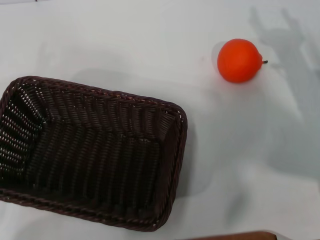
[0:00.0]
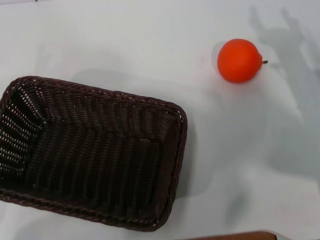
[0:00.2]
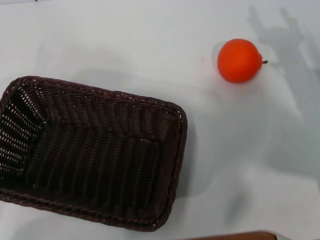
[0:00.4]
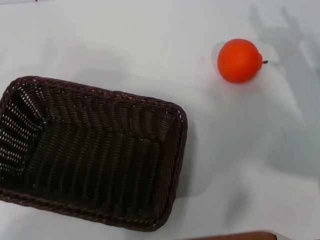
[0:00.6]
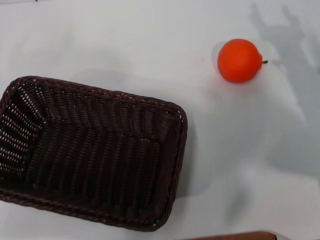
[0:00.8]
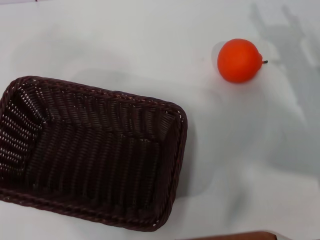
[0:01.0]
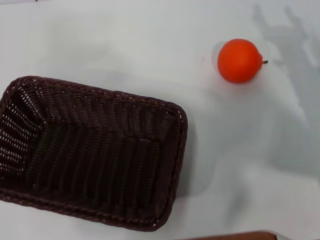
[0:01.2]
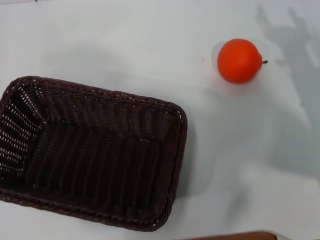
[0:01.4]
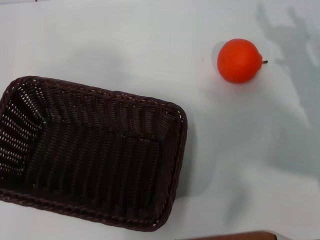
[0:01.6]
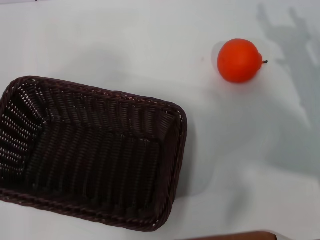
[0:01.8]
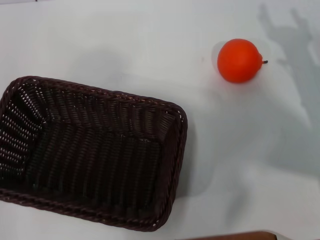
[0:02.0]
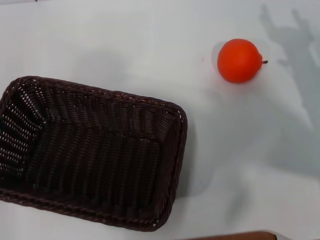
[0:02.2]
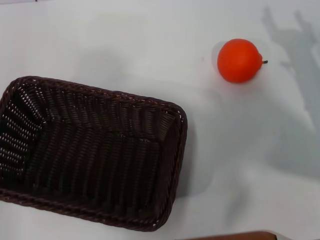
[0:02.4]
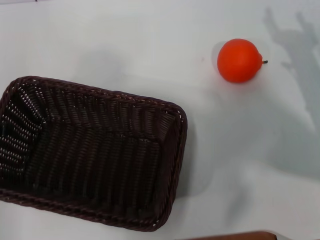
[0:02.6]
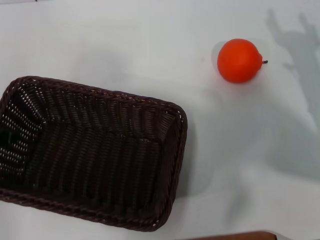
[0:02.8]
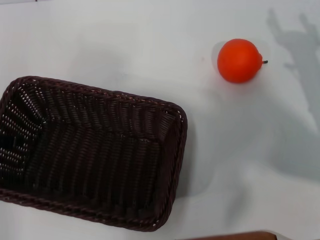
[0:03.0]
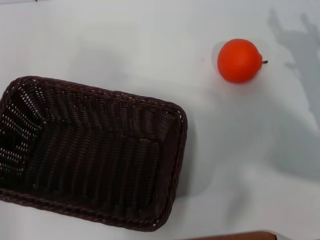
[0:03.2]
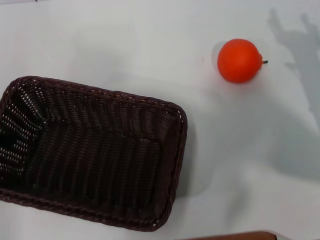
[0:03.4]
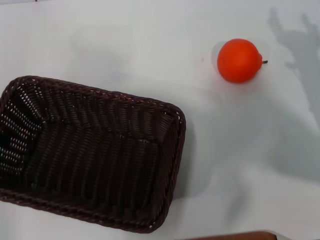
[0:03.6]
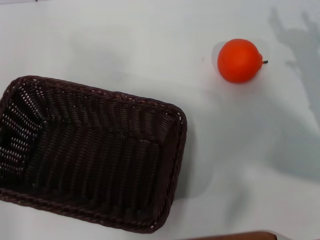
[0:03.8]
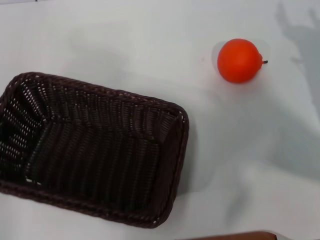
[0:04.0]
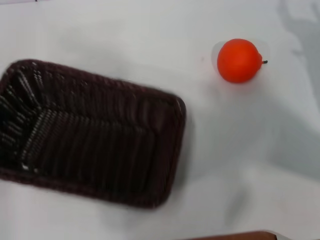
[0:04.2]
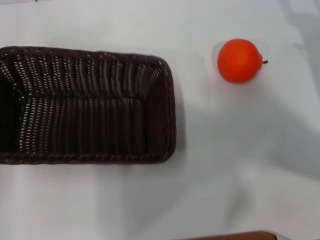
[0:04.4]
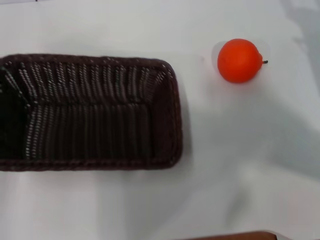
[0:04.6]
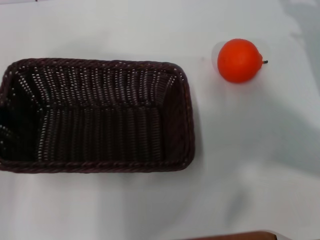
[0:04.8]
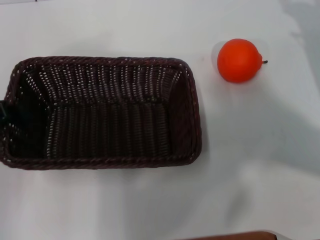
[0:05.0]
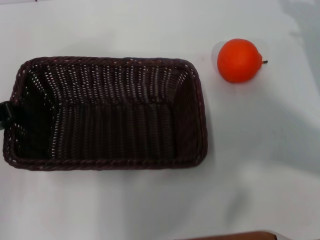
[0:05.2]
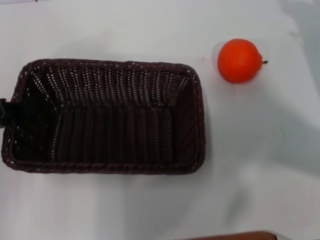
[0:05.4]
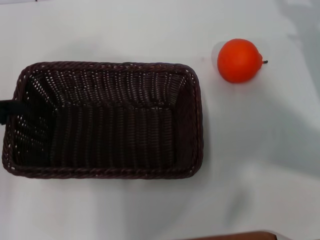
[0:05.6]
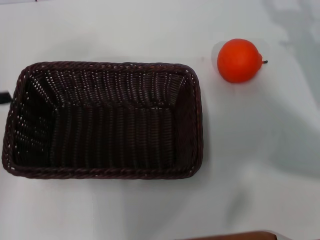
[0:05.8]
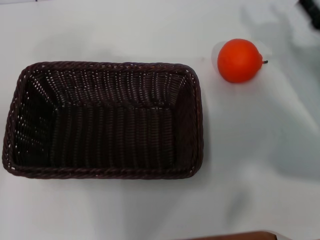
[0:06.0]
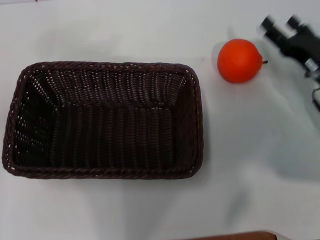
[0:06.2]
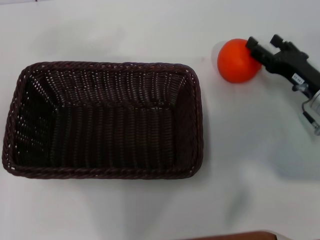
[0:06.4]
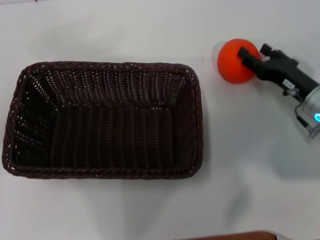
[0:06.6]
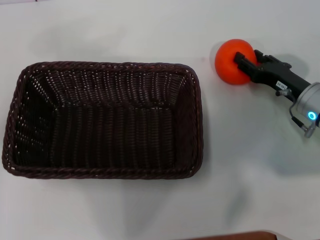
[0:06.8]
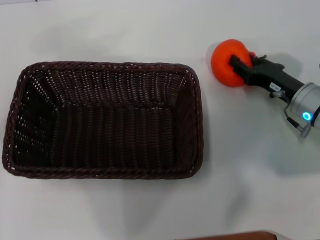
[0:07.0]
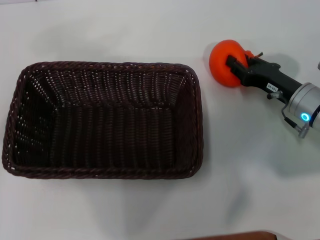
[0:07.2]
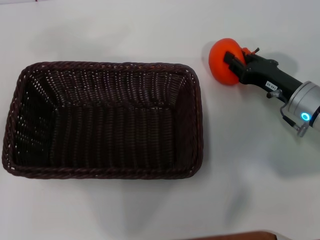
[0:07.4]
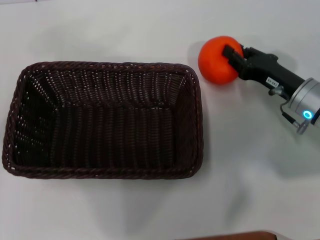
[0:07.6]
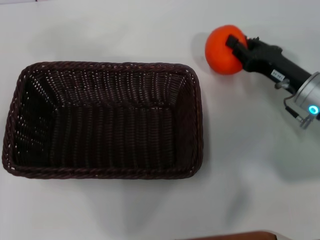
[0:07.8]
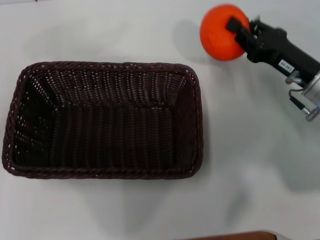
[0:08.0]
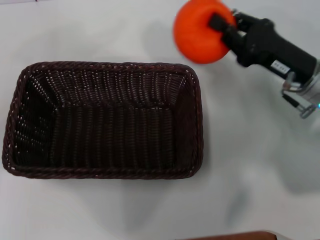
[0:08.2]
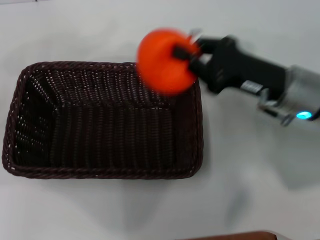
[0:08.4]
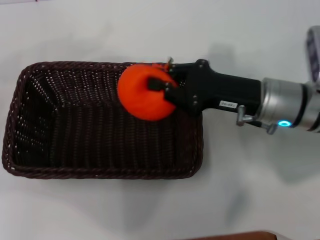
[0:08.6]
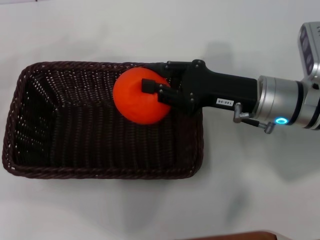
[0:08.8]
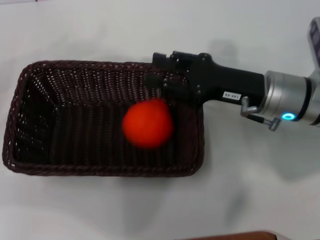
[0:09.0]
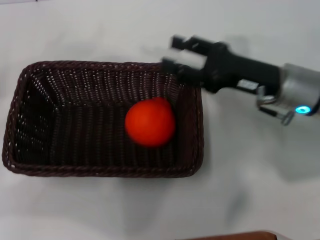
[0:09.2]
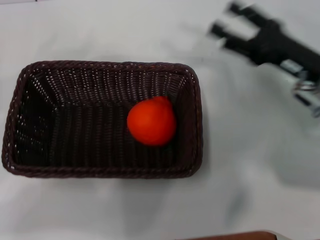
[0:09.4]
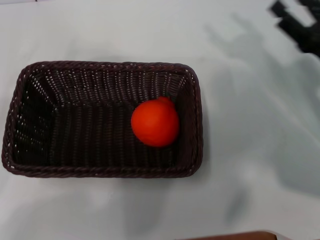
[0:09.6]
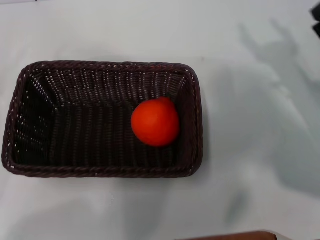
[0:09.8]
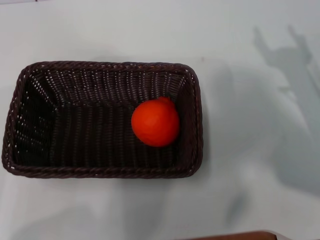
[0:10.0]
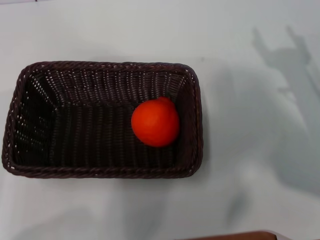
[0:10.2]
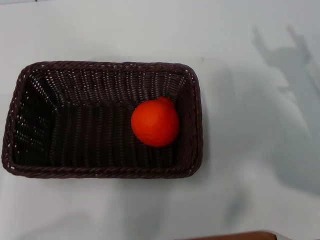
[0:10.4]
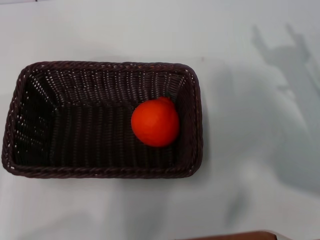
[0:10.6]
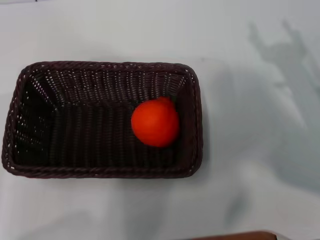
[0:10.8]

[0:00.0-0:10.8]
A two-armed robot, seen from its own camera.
Task of the whole recording: the left gripper pick up the black basket and place it horizontally in the middle of the table, the right gripper pick up the orange and place it into the black basket.
Step, 0:00.0 to 0:04.0: Pick up the dark basket with the left gripper.
Step, 0:04.4 to 0:05.8: Place the dark basket in the center of view with the left gripper.
Step, 0:06.0 to 0:08.0: Pick up the orange with the right gripper.
Step, 0:08.2 to 0:09.2: Place the orange into the dark basket with the right gripper.
0:00.0 to 0:01.6: The left gripper heads upward, covering approximately 20 cm.
0:03.0 to 0:04.6: The left gripper closes up. Meanwhile the right gripper shifts by about 5 cm.
0:04.6 to 0:06.2: The left gripper shifts by approximately 5 cm, and opens its fingers. The right gripper shifts some 5 cm to the left.
0:06.2 to 0:07.8: The right gripper closes.
0:07.8 to 0:09.2: The right gripper moves upward, some 5 cm. The left gripper heads downward, covering some 5 cm.
0:09.2 to 0:10.8: The left gripper moves downward and backward, roughly 10 cm; the right gripper goes about 10 cm to the right and backward, and opens.

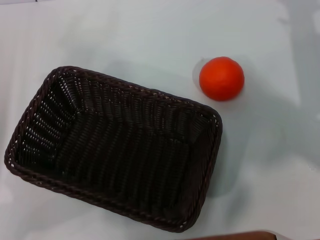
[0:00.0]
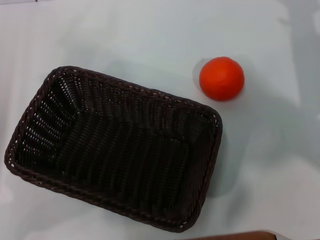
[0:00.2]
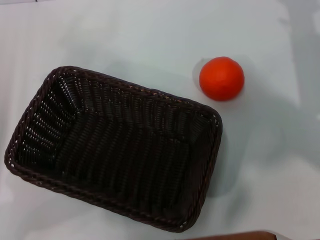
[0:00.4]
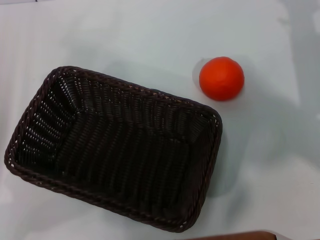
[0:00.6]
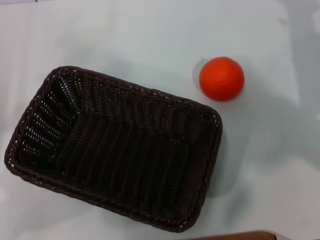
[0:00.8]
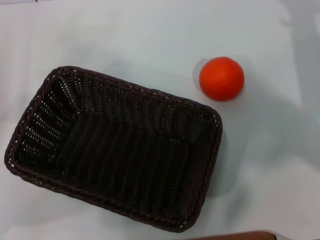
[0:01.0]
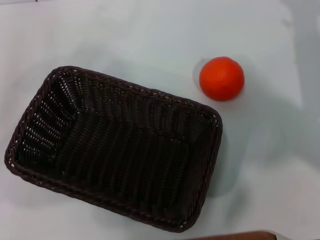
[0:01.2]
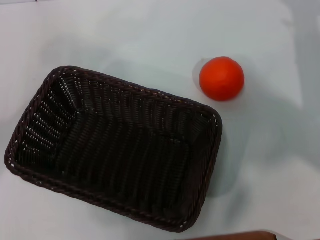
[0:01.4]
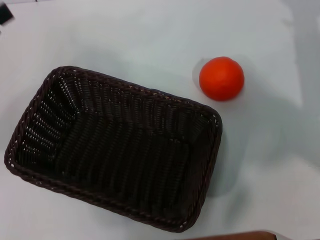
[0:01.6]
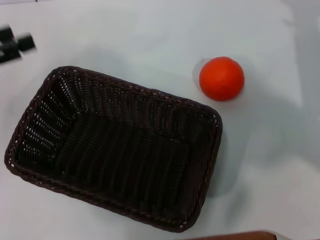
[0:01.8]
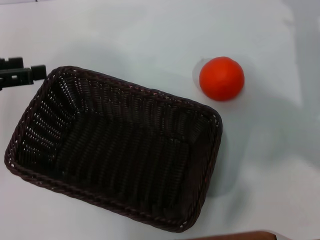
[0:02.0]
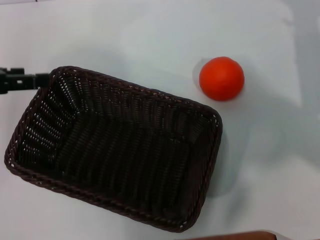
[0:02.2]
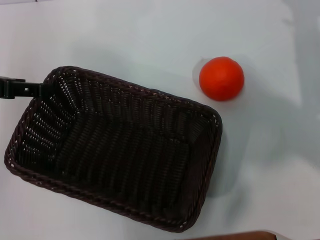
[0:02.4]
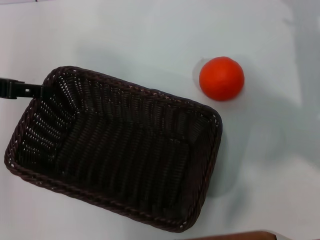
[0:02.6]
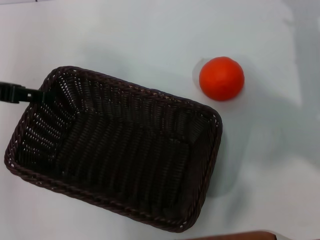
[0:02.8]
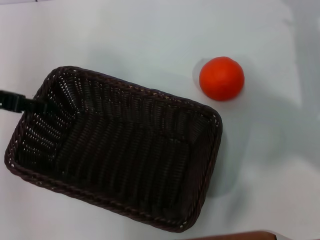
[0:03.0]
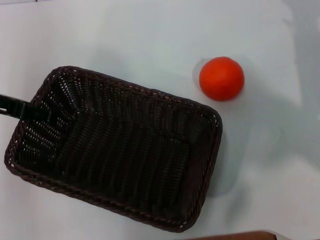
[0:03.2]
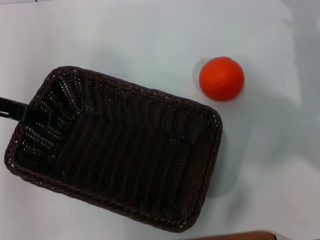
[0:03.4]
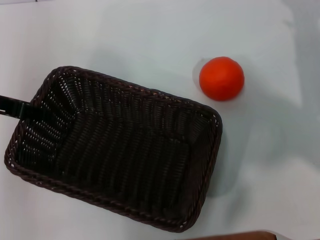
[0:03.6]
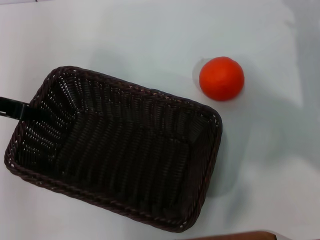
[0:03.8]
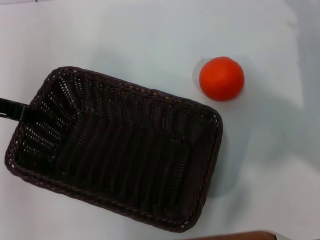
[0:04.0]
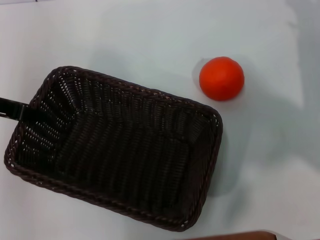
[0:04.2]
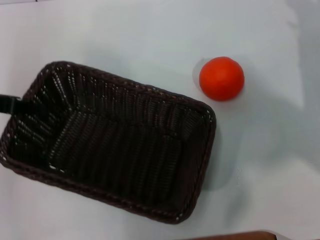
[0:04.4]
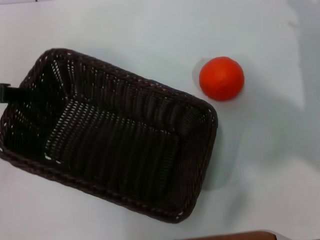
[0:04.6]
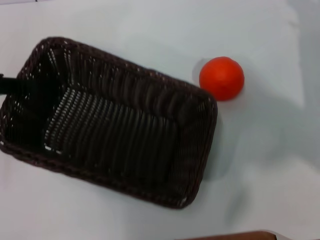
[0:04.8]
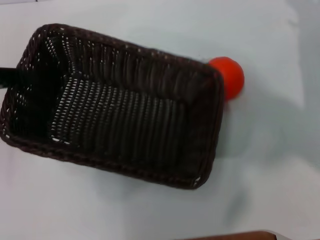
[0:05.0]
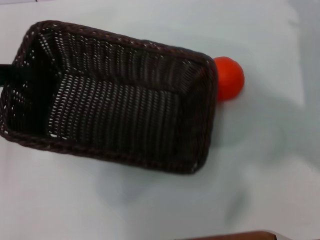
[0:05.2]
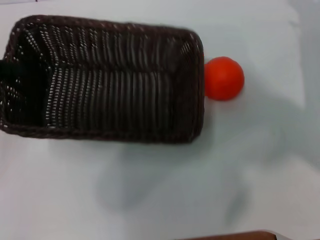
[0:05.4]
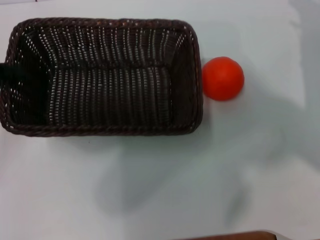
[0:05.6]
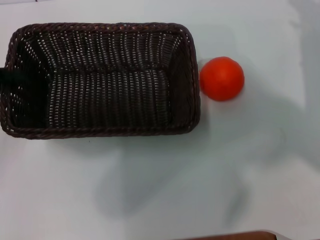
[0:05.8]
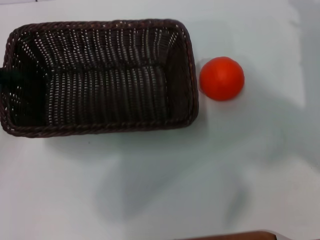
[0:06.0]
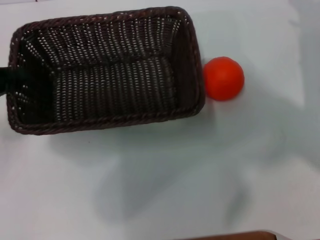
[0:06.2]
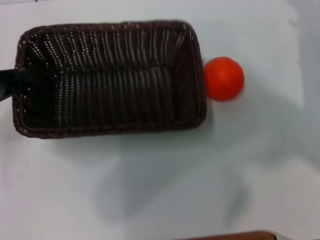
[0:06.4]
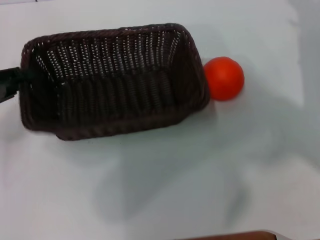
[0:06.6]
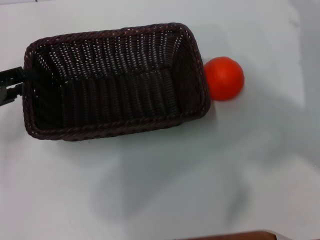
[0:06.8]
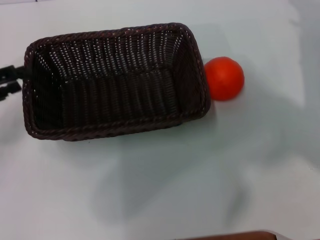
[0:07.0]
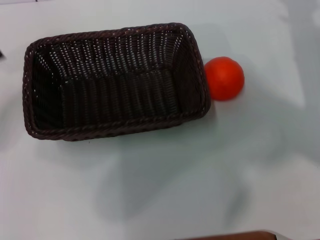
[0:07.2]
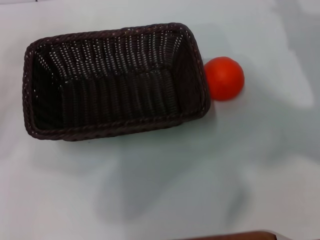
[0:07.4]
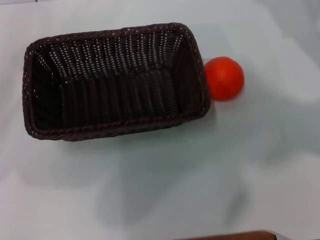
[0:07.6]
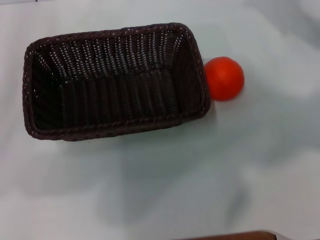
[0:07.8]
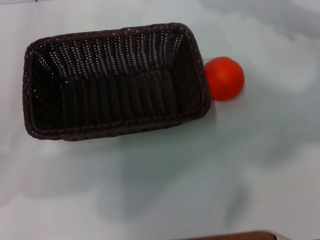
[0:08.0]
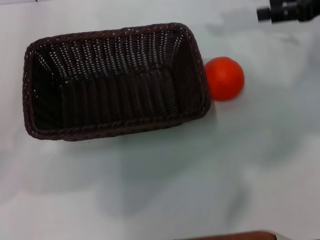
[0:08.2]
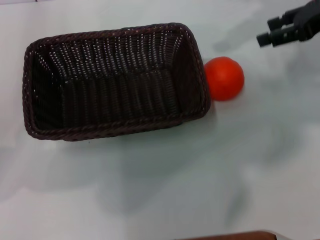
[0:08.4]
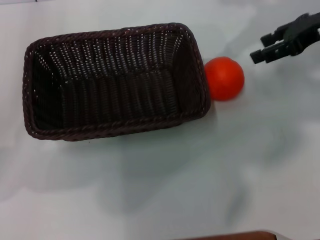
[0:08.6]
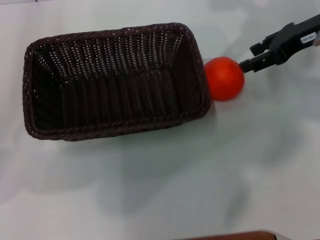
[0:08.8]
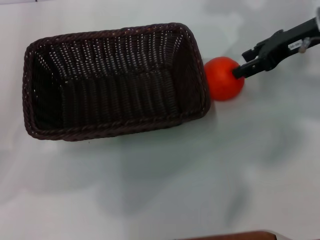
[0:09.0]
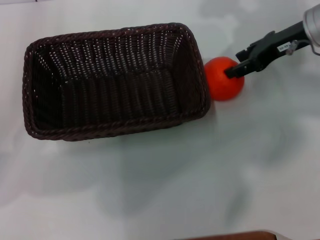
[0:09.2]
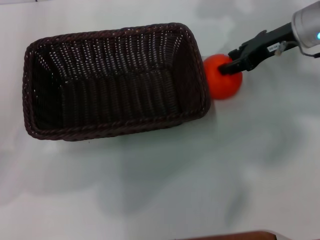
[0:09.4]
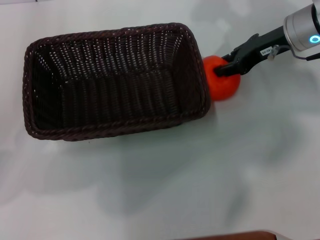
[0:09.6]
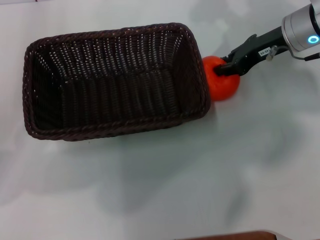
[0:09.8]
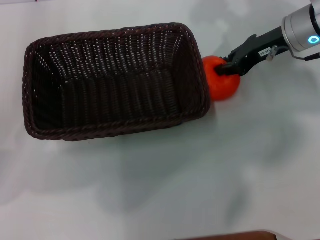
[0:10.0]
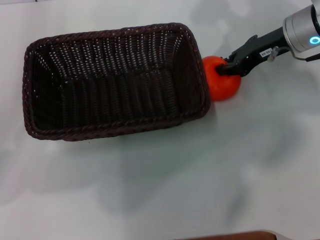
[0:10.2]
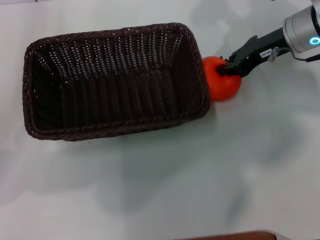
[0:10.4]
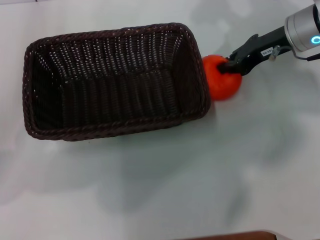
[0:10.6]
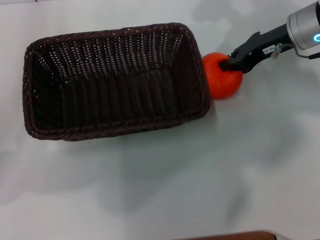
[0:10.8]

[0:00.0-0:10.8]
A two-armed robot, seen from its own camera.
Task of the whole recording: the left gripper pick up the black basket and place it horizontally in the middle of the table, the right gripper pick up the orange and place it into the black basket.
Step, 0:00.0 to 0:05.0: Pick up the dark basket with the left gripper.
Step, 0:05.4 to 0:07.0: Place the dark basket in the center of view with the left gripper.
0:00.0 to 0:01.6: The left gripper is displaced upward by approximately 5 cm.
0:01.6 to 0:03.0: The left gripper travels to the right by about 5 cm.
0:03.0 to 0:04.6: The left gripper closes.
0:04.6 to 0:06.2: The left gripper travels downward by some 5 cm.
0:06.2 to 0:07.8: The left gripper opens its fingers. Meanwhile the right gripper is displaced upward by about 10 cm.
0:07.8 to 0:09.2: The right gripper travels to the left by roughly 10 cm.
0:09.2 to 0:10.8: The right gripper closes.
